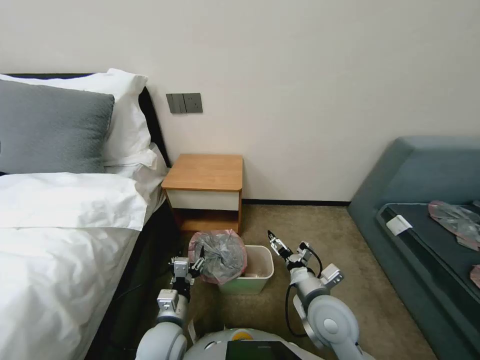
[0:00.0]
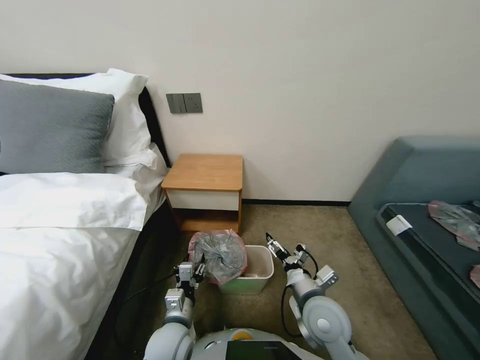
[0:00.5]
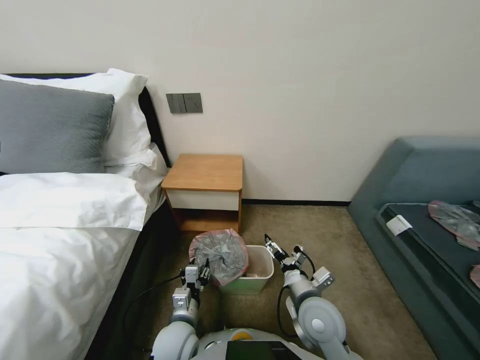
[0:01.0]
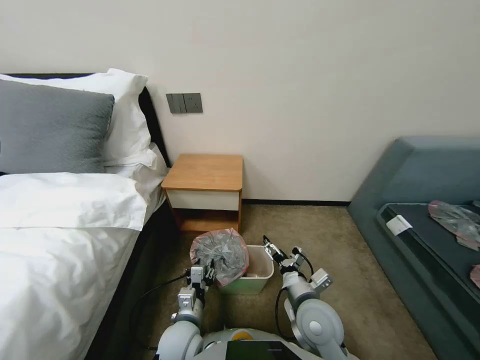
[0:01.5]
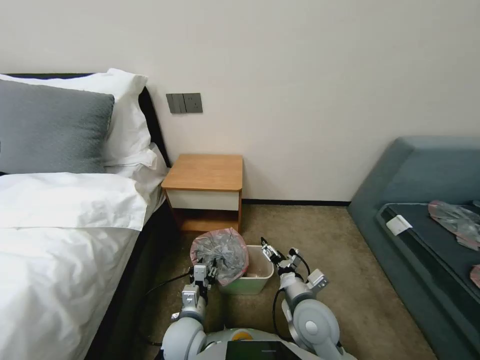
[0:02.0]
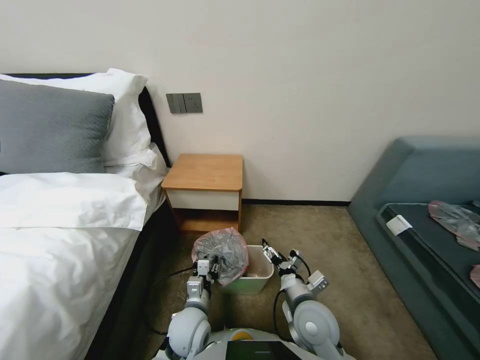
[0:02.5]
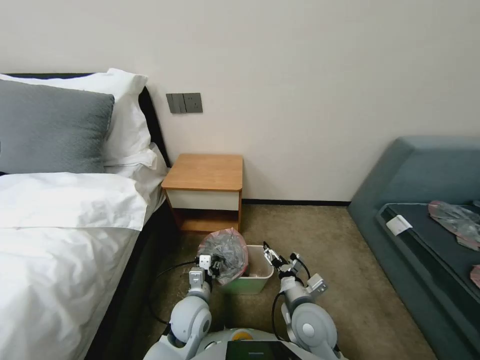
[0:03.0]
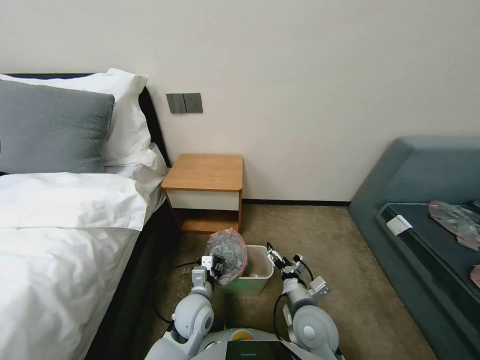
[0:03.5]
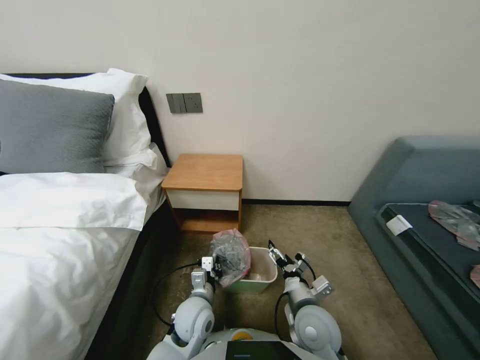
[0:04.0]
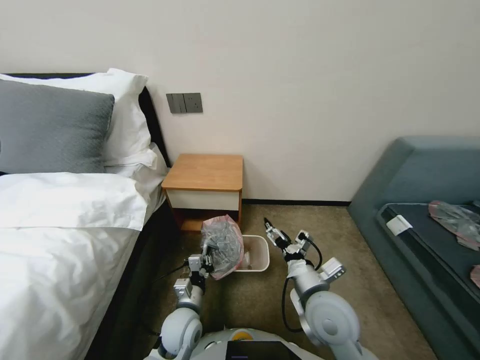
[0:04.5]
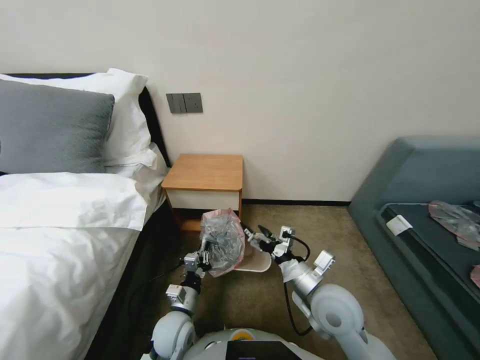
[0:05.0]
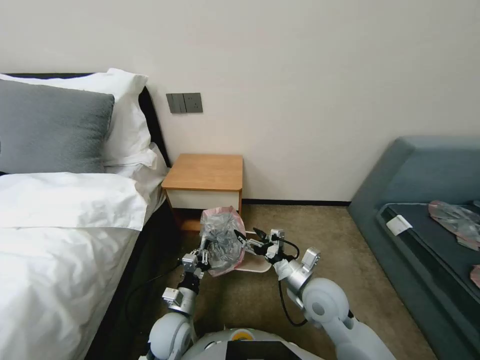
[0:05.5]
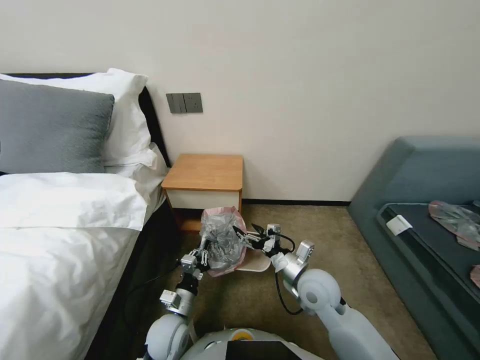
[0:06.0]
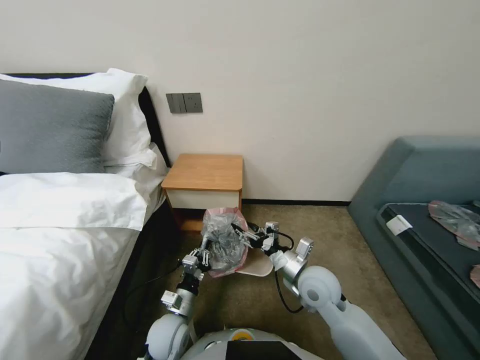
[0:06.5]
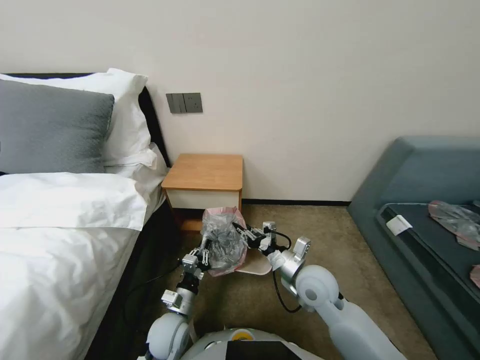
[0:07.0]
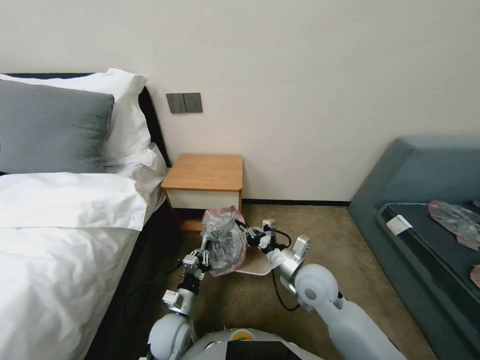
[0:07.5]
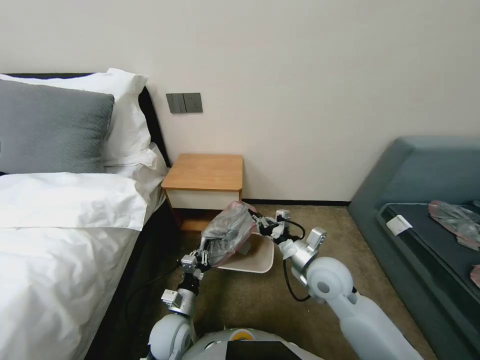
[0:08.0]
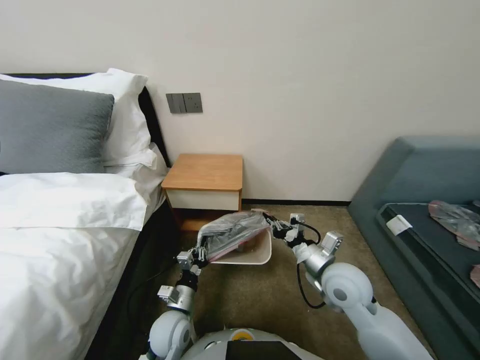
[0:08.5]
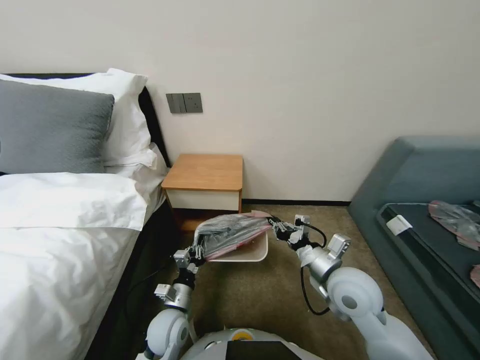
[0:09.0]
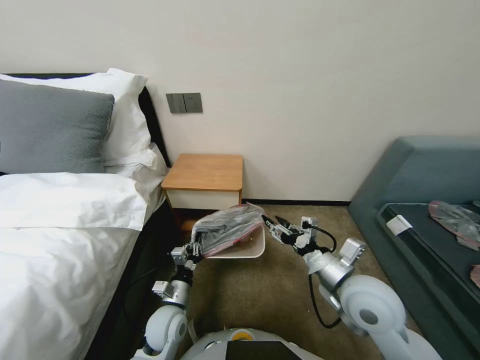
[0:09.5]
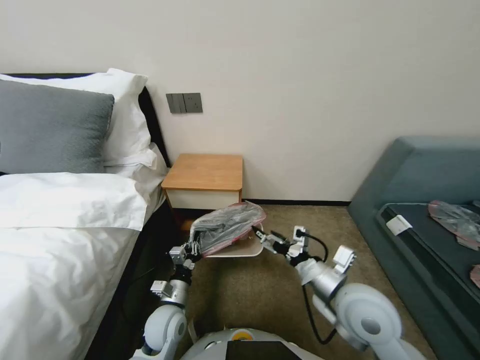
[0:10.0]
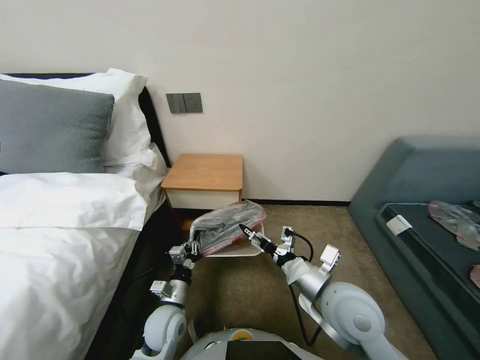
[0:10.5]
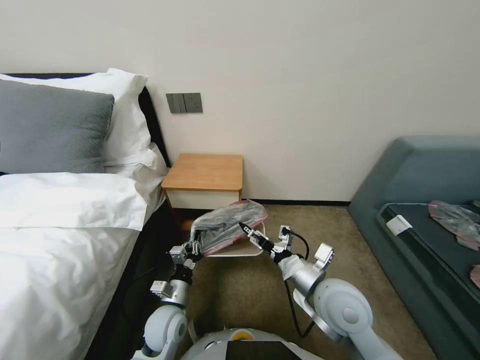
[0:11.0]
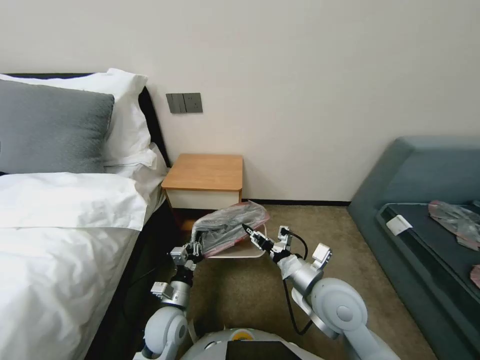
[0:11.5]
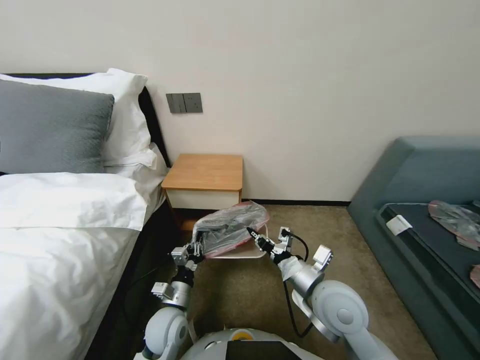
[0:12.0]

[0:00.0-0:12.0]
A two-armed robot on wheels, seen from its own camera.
Task of the whole recording: Pick up the garbage bag from the table and place it over the trash can.
0.0 to 2.0 s: The left gripper ends up approximately 5 cm from where it was.
2.0 to 4.0 s: The left gripper moves forward, some 5 cm.
4.0 to 6.0 s: The right gripper is displaced forward by roughly 5 cm. Meanwhile the left gripper heads to the left, covering some 5 cm.
6.0 to 8.0 s: The right gripper closes.
8.0 to 10.0 s: The right gripper heads backward, covering roughly 5 cm, and opens.
10.0 to 12.0 s: The right gripper changes place by approximately 5 cm, and closes.

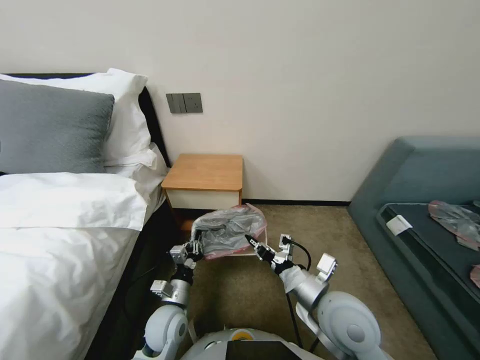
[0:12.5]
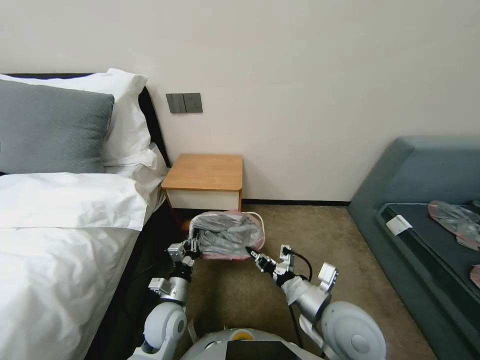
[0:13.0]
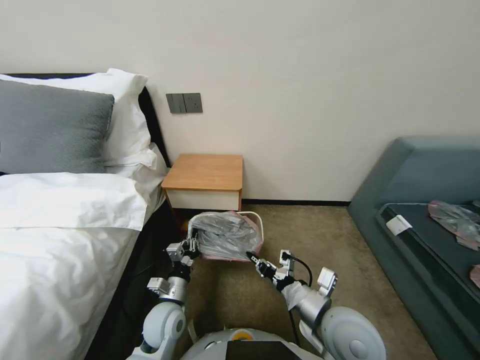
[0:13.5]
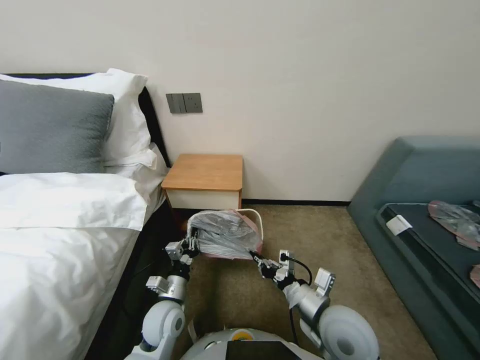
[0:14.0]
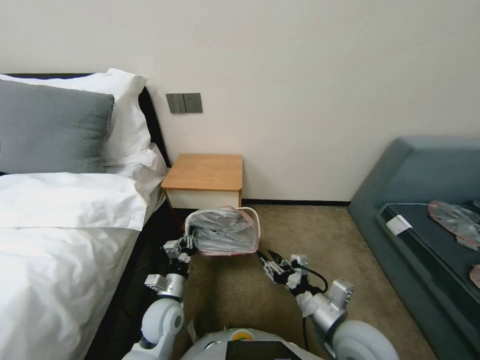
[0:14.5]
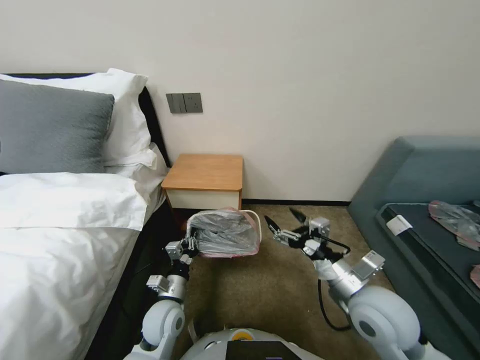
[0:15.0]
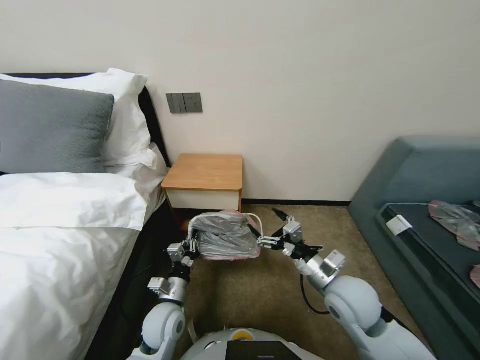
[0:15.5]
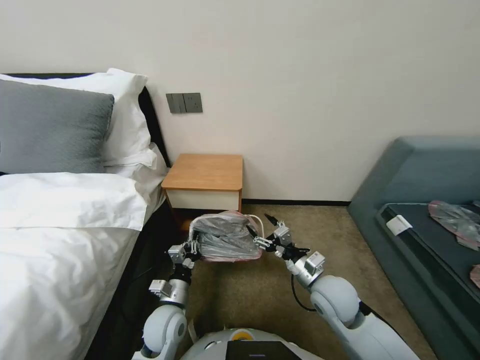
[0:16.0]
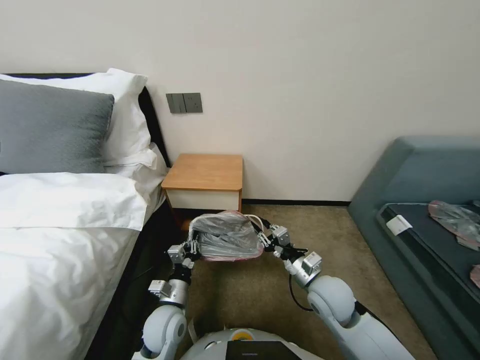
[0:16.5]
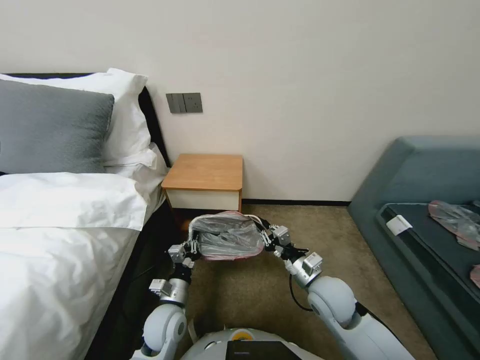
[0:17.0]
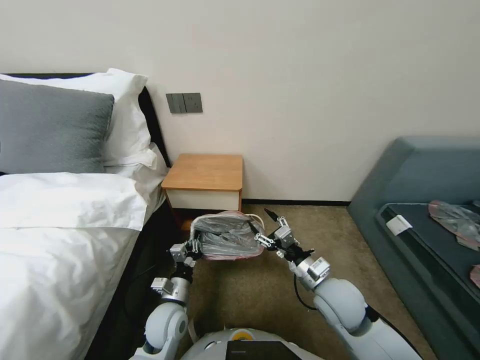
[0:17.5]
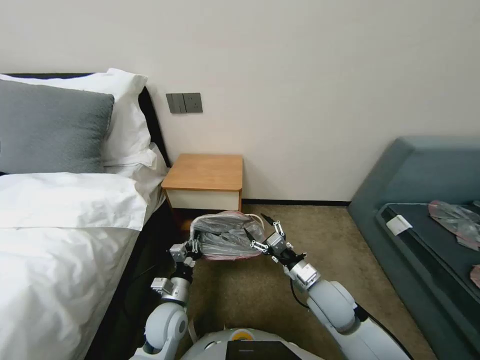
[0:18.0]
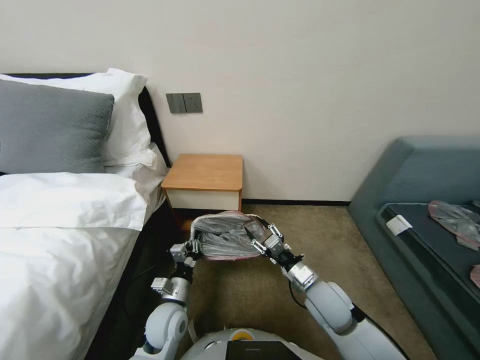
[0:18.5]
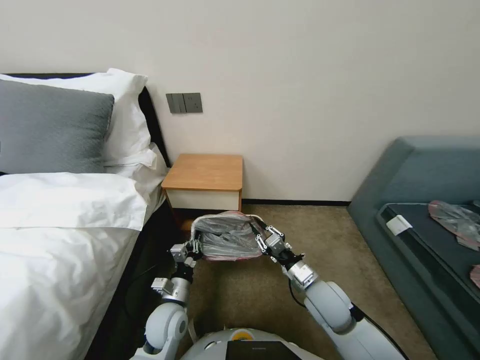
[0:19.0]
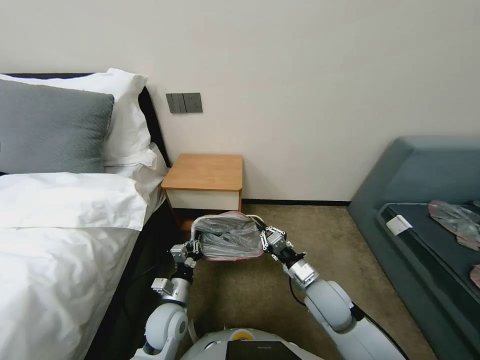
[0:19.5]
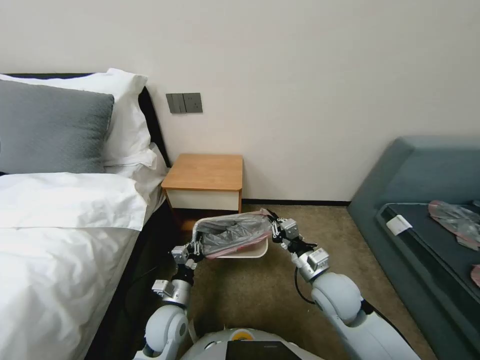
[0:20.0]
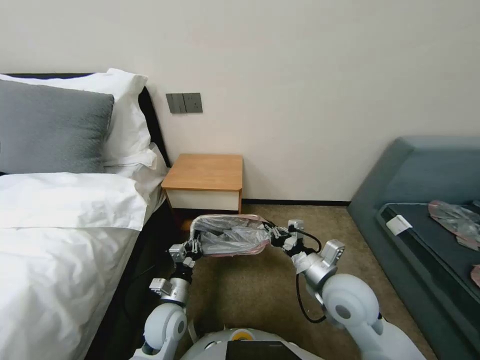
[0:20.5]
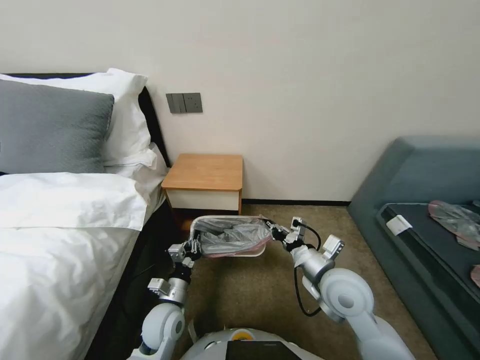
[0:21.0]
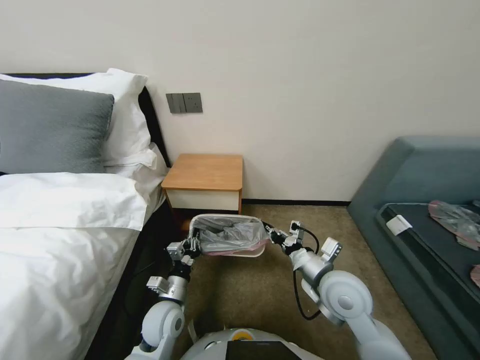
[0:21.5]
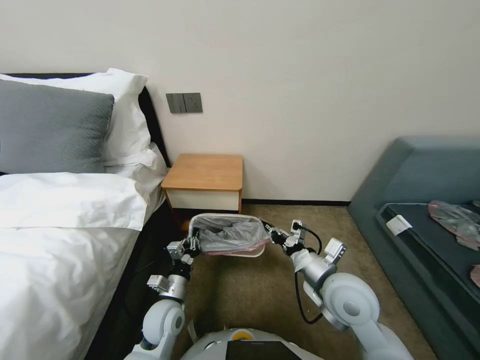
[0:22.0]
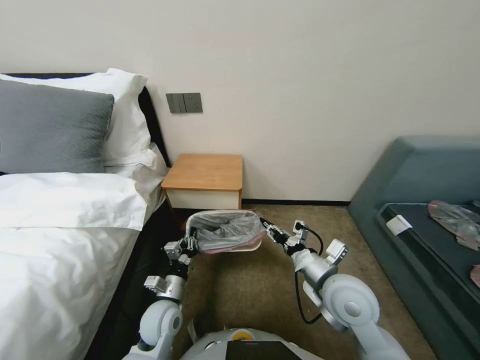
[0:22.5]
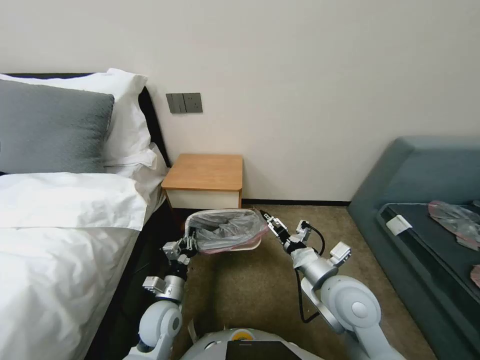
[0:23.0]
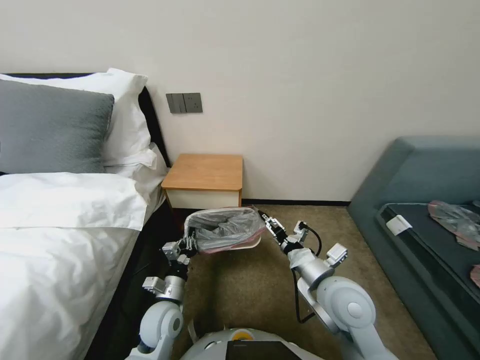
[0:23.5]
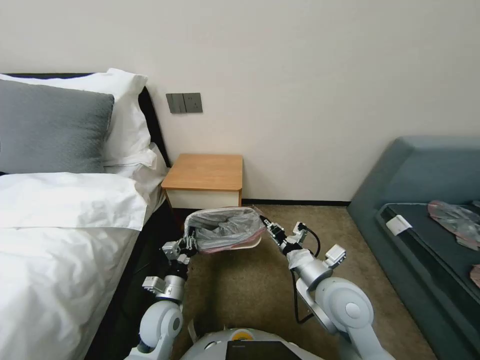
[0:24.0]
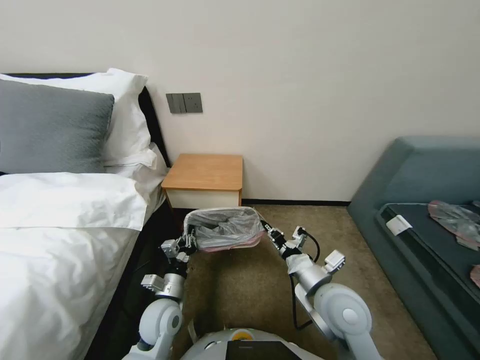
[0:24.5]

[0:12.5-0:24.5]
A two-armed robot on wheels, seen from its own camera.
Task of the whole recording: Pick up the garbage bag from the table and place it over the trash can.
12.5 to 14.5 s: The right gripper ends up approximately 5 cm from where it was.
14.5 to 16.5 s: The right gripper travels forward by roughly 10 cm, and opens, then closes again.
16.5 to 18.5 s: There are only small adjustments of the grippers.
18.5 to 20.5 s: The right gripper shifts approximately 5 cm upward, and closes its fingers.
22.5 to 24.5 s: The right gripper opens, then closes once more.

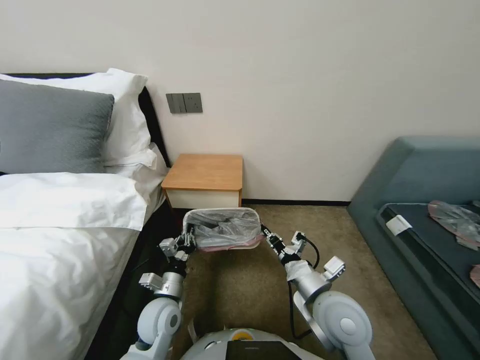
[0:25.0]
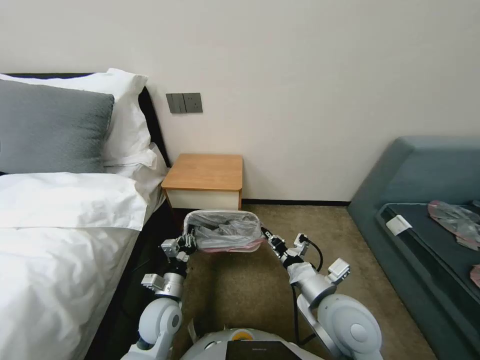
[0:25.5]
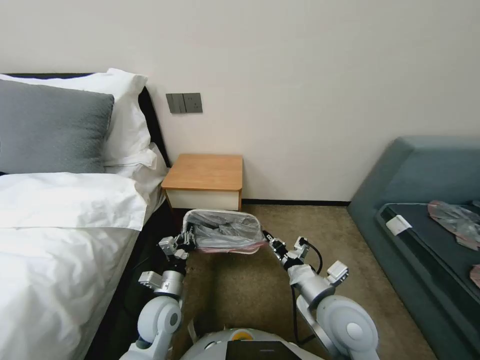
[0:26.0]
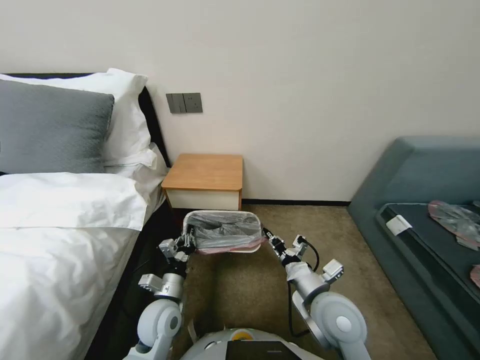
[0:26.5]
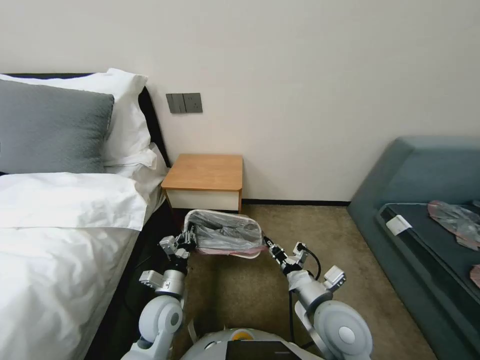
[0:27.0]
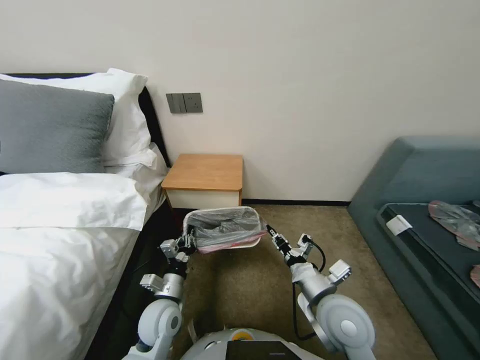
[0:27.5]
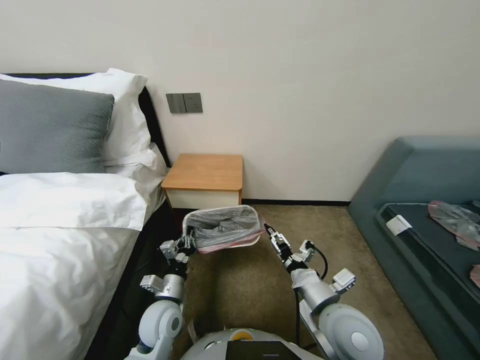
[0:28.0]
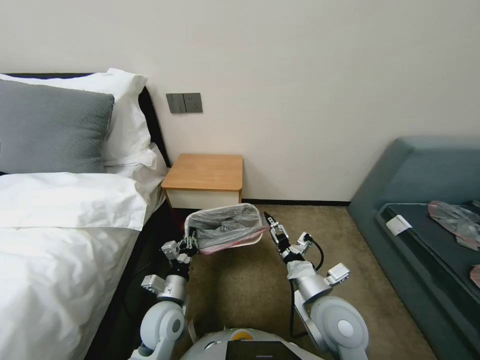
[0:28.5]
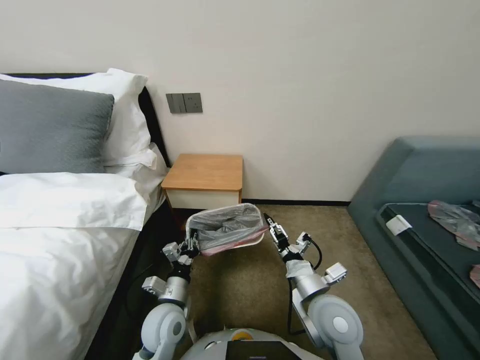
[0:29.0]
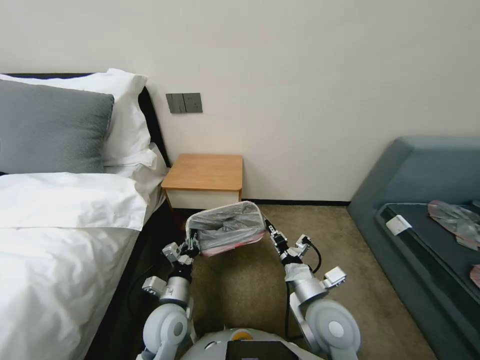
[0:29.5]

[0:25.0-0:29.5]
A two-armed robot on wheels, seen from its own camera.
Task of the whole recording: Pick up the garbage bag from the table and place it over the trash can.
25.0 to 27.0 s: The grippers make only small movements.
27.0 to 29.5 s: The right gripper opens, then closes again.
